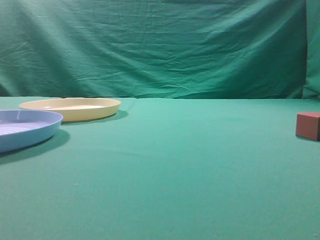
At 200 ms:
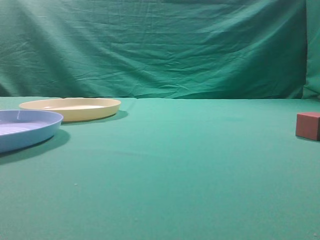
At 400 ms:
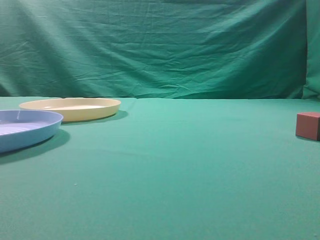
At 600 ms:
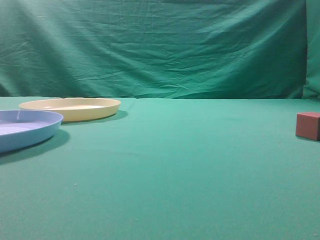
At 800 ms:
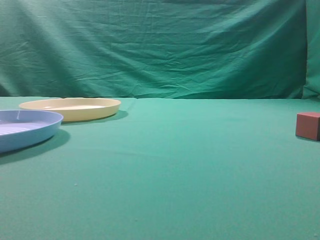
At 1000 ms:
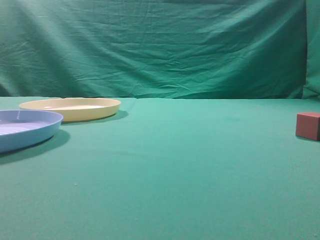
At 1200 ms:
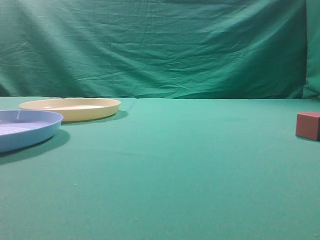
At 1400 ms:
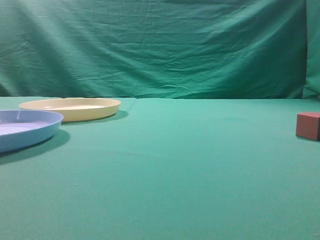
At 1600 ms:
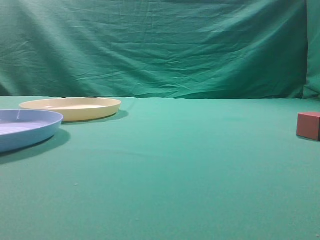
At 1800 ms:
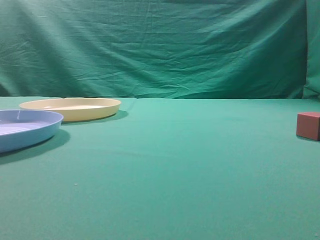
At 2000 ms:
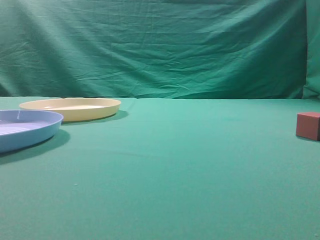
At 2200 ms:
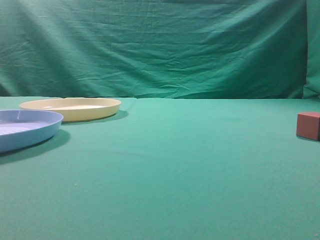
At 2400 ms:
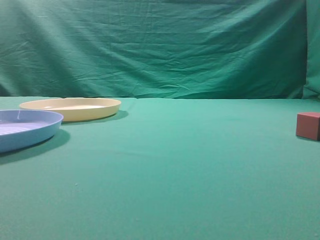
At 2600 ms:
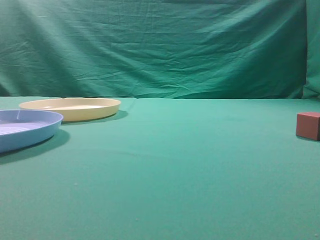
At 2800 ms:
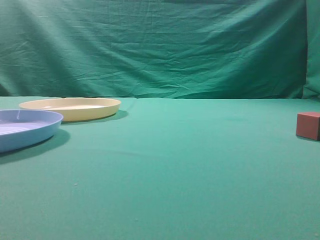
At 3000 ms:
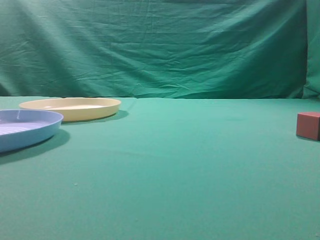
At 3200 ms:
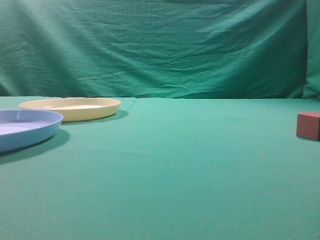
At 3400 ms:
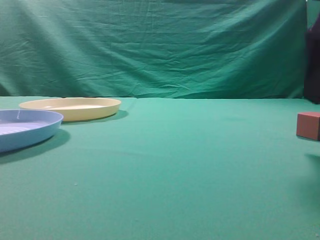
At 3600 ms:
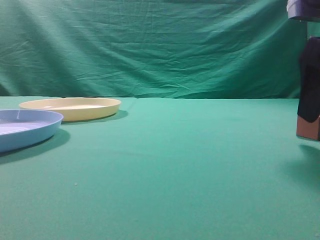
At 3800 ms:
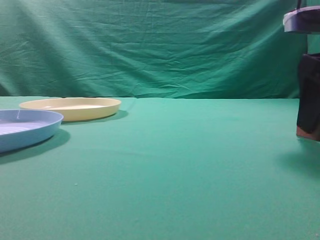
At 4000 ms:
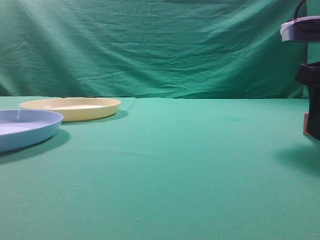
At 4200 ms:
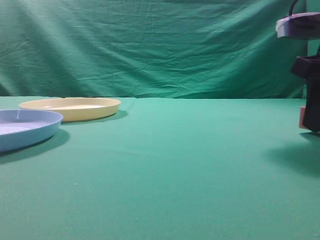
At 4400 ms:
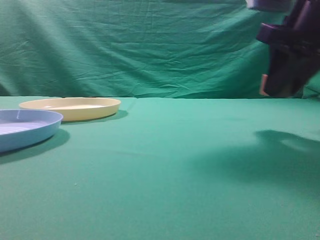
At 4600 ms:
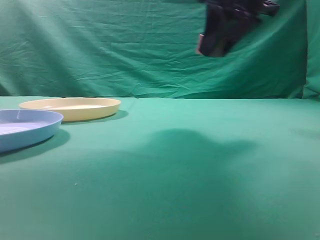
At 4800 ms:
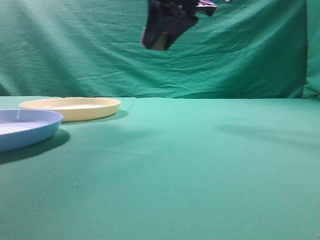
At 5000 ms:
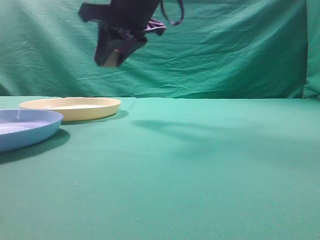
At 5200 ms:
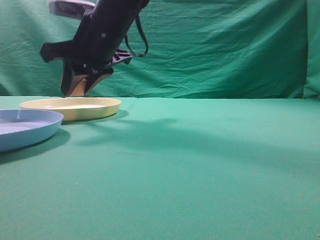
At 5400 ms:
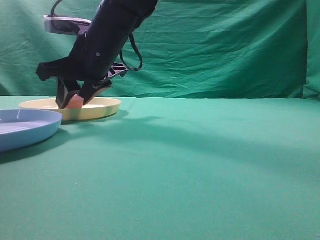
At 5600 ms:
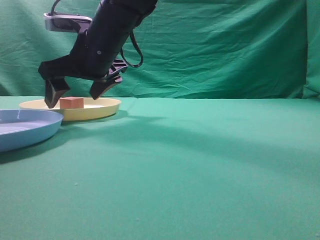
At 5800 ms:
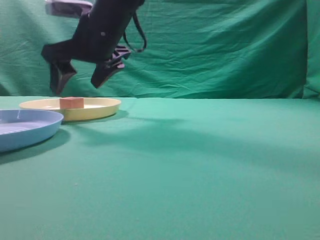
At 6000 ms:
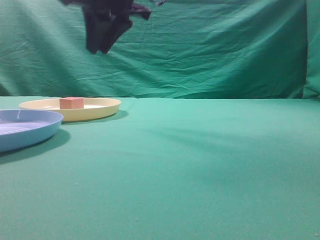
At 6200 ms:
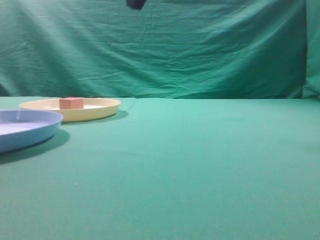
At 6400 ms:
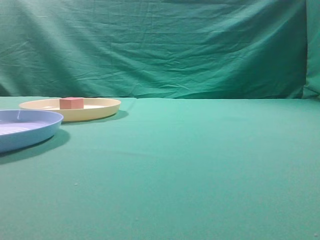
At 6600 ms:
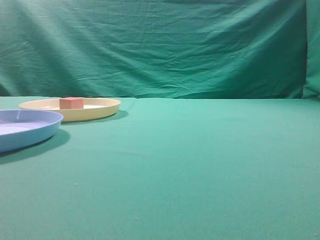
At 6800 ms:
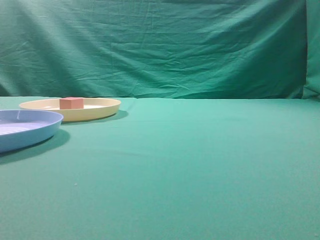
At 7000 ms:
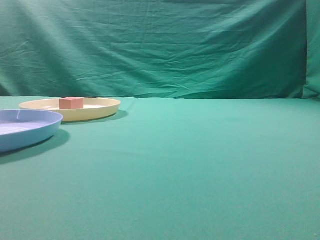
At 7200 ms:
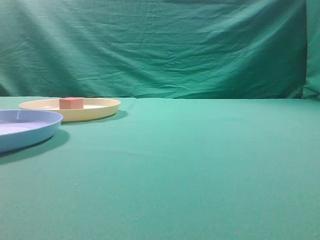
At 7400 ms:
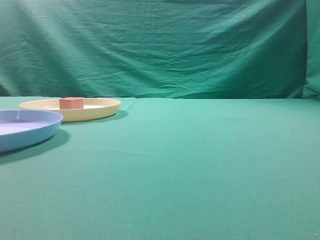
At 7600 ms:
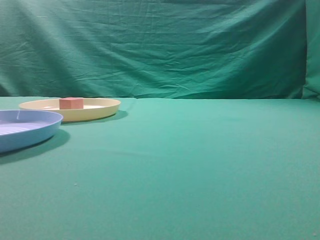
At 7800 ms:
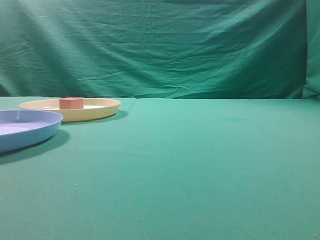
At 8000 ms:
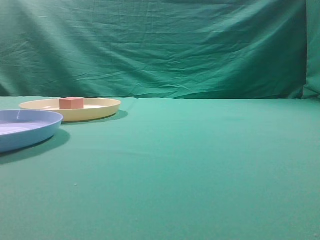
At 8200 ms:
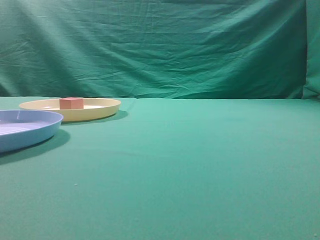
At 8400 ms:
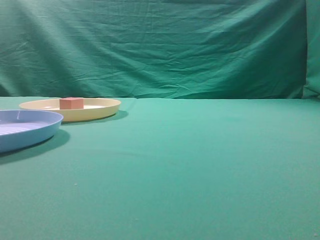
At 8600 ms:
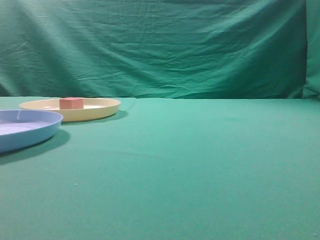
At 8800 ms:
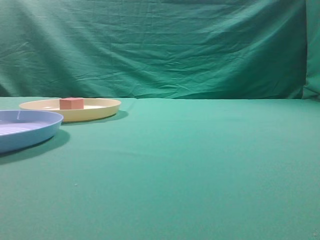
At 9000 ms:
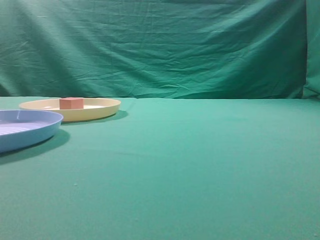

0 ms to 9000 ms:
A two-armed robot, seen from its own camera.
Task of the whole recording: pick up the cube block from the table and put it on the plate.
Step, 0 ms to 4200 ms: Grasp the small cube on the table.
Step, 4400 ms to 5800 ms: Place it into the yellow plate.
3000 ms to 4400 ms: The right gripper goes roughly 20 cm to the left and forward, and closes up.
4400 ms to 6000 ms: The right gripper is displaced upward by approximately 10 cm, and closes.
6000 ms to 7600 ms: The right gripper moves backward and to the right, approximately 35 cm.
